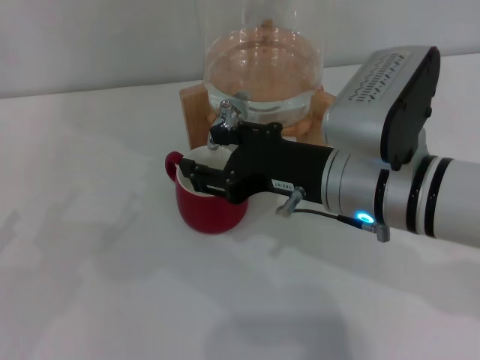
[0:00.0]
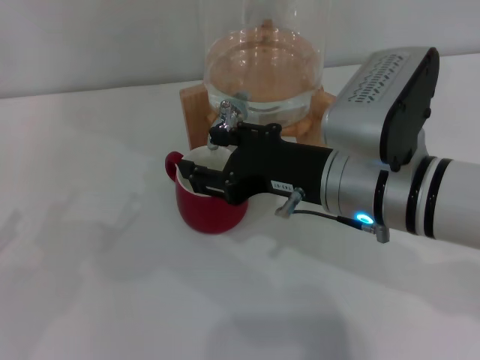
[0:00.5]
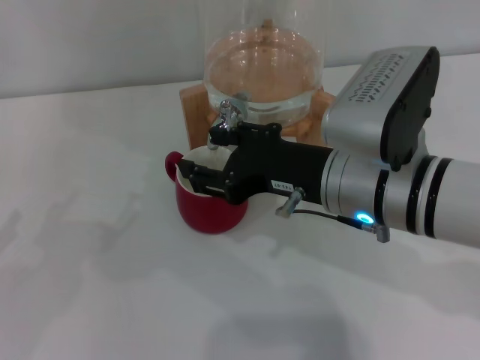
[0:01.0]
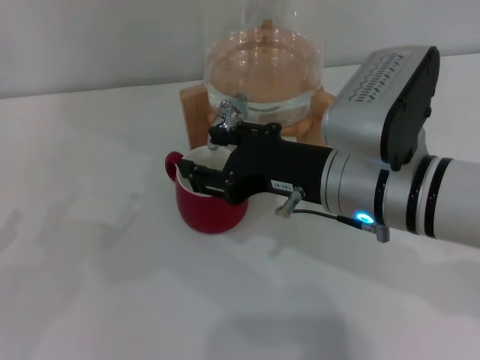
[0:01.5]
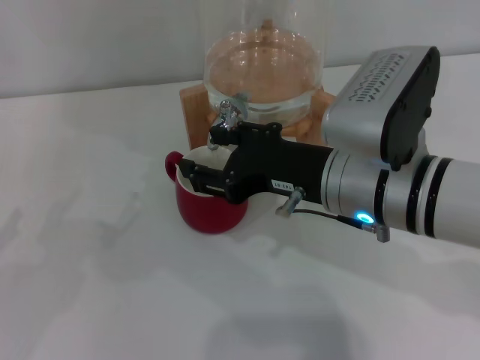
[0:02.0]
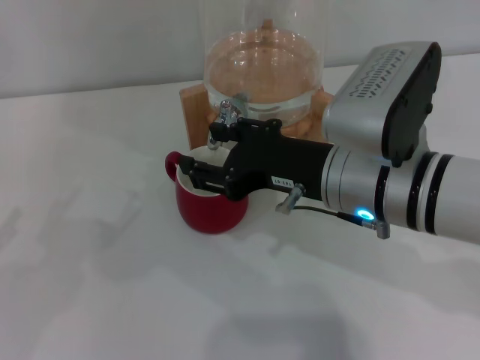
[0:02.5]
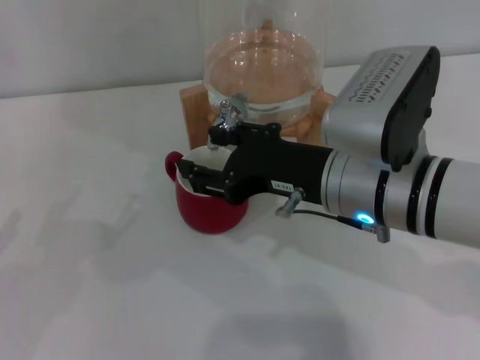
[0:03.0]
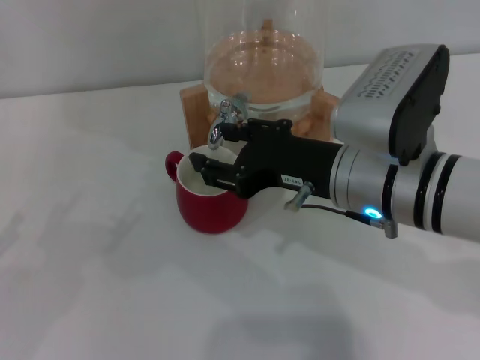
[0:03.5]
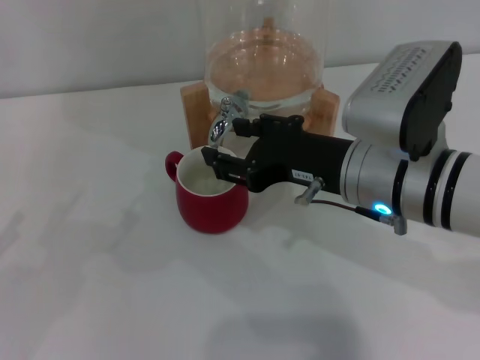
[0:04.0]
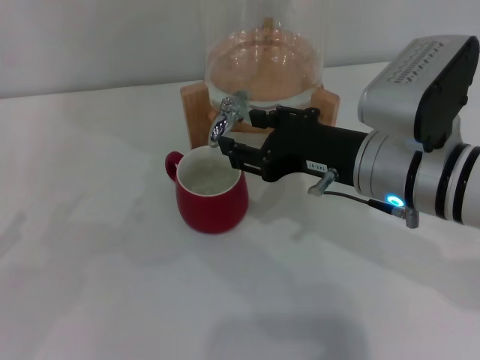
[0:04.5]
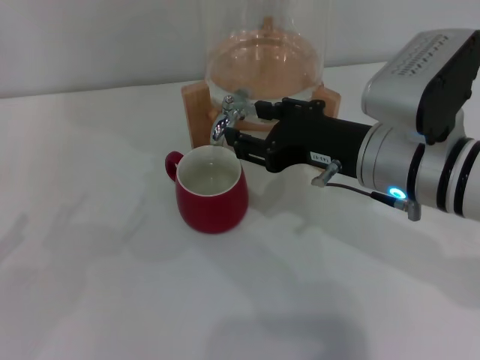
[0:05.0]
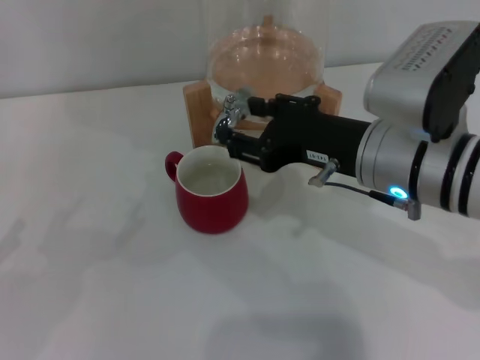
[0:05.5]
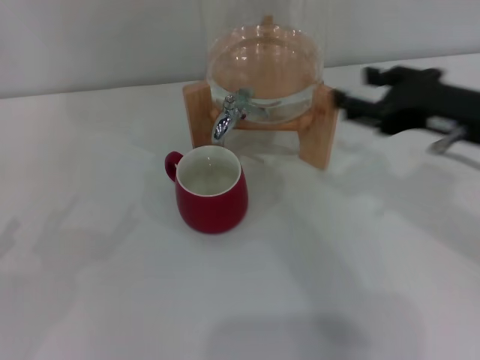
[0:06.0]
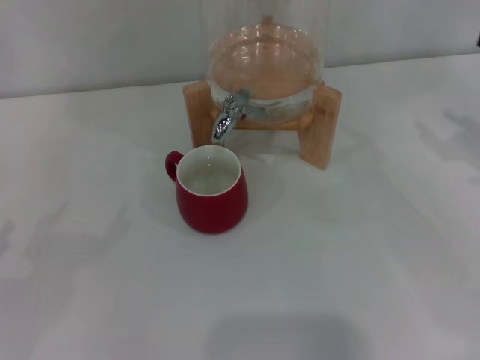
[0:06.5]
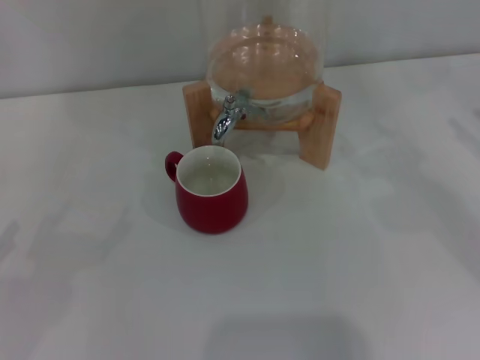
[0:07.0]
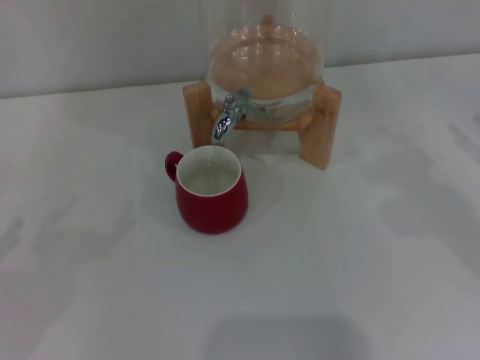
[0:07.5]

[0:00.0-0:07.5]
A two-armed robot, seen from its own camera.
Task of the whole recording: the left gripper pick up the red cup and place it horizontally under the faucet, the right gripper turn on the faucet to fill the cup, and then turn off the faucet.
Step, 0:00.0 to 0:03.0: Open the dispenser valve and fill the cup with water with the right gripper.
Step, 0:03.5 to 0:05.5: Close the dispenser valve with the right gripper.
0:00.0 to 0:02.0: Neither gripper changes place.
0:02.0 to 0:05.5: The grippers make only small movements.
0:05.5 to 0:07.5: The right gripper heads to the right, covering some 25 cm.
